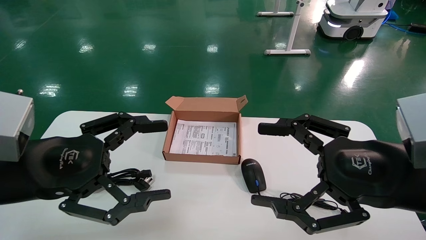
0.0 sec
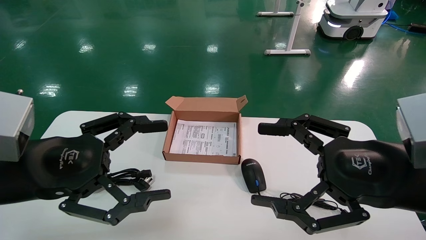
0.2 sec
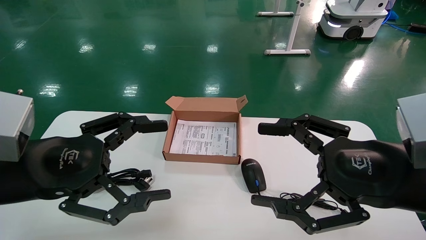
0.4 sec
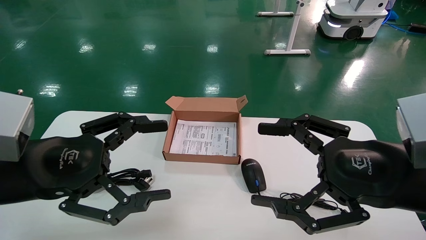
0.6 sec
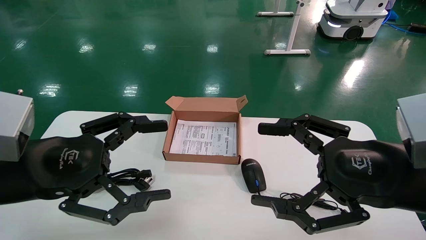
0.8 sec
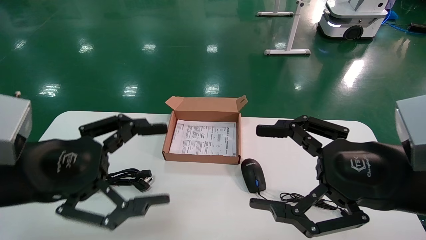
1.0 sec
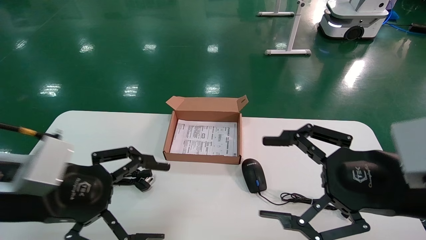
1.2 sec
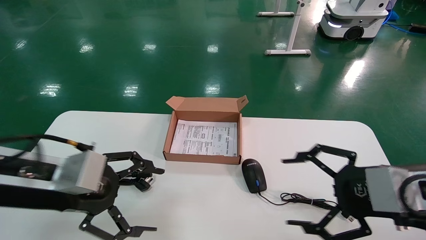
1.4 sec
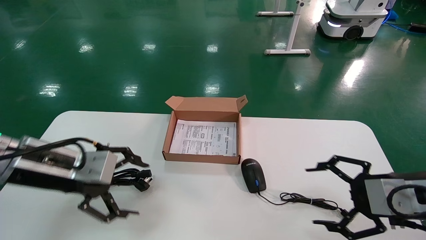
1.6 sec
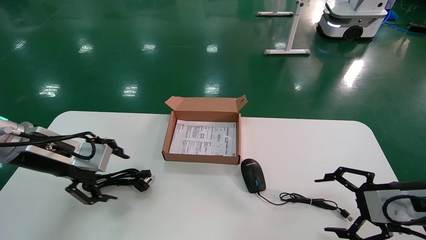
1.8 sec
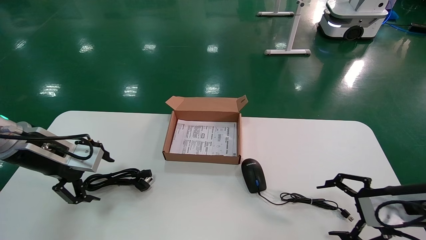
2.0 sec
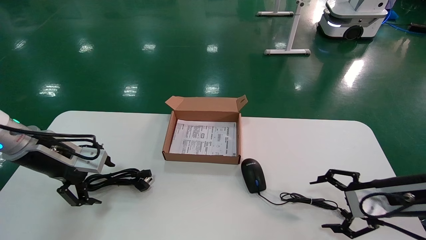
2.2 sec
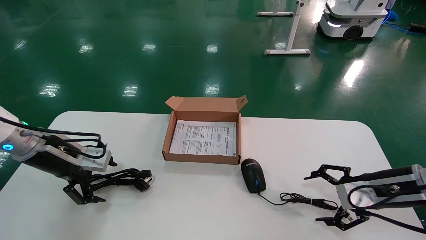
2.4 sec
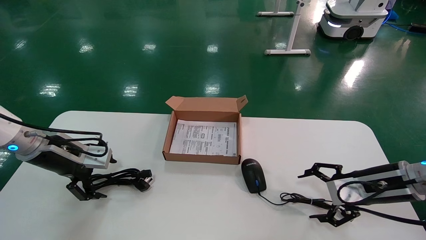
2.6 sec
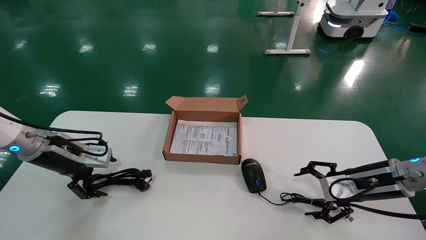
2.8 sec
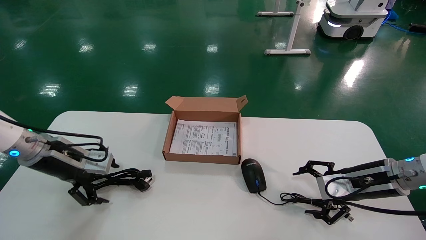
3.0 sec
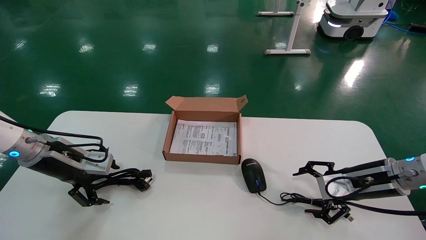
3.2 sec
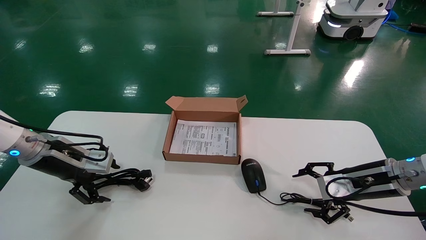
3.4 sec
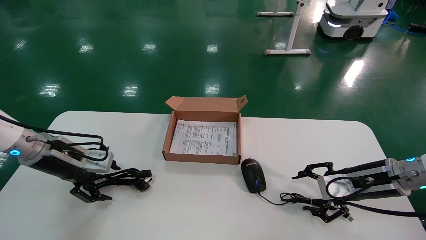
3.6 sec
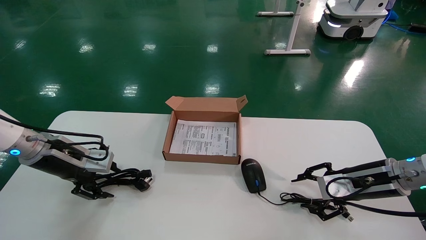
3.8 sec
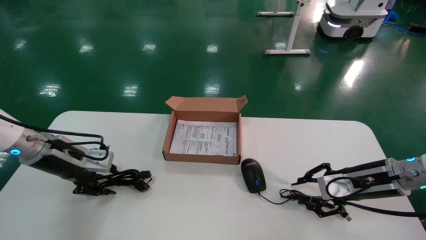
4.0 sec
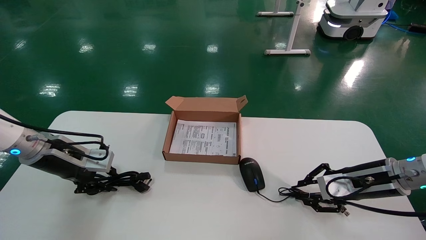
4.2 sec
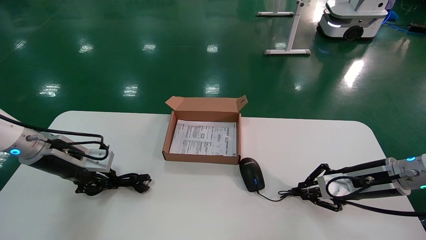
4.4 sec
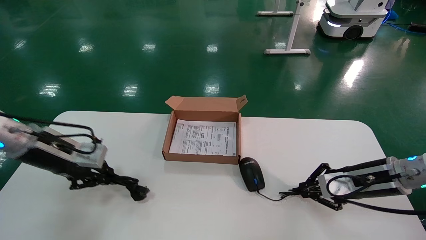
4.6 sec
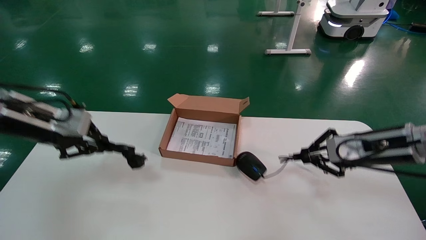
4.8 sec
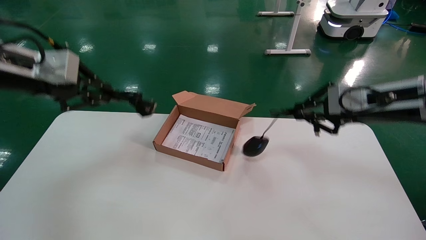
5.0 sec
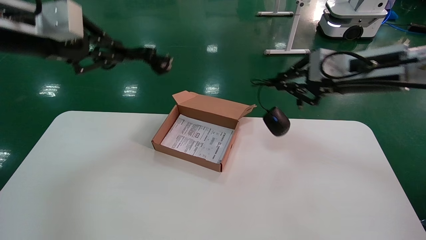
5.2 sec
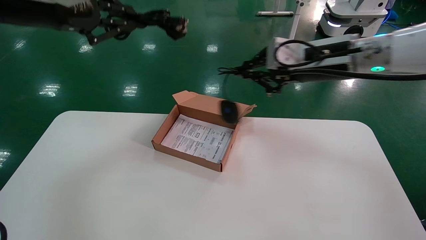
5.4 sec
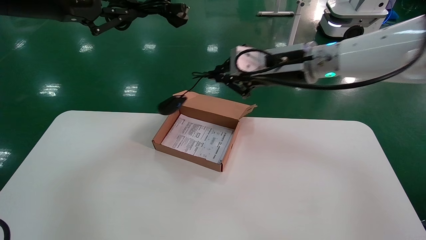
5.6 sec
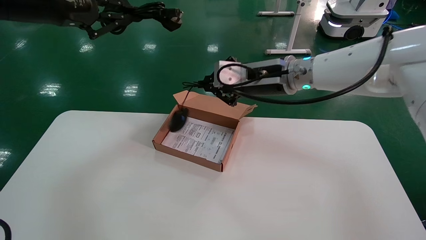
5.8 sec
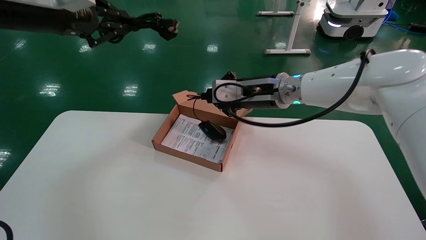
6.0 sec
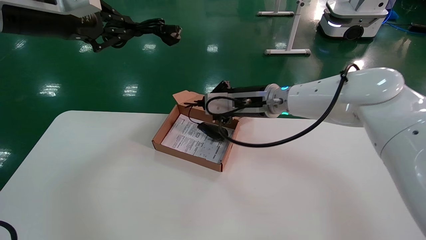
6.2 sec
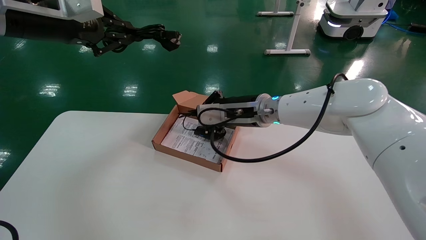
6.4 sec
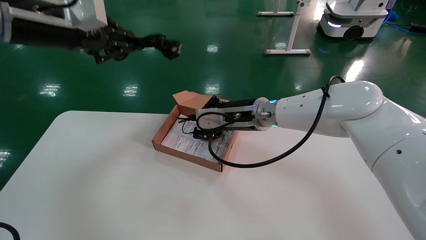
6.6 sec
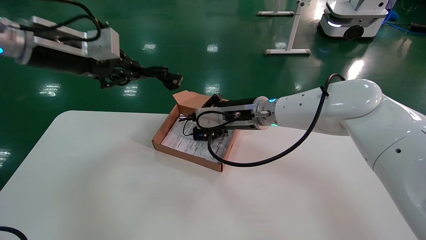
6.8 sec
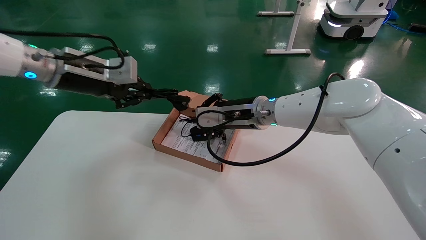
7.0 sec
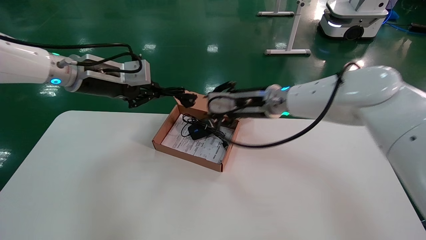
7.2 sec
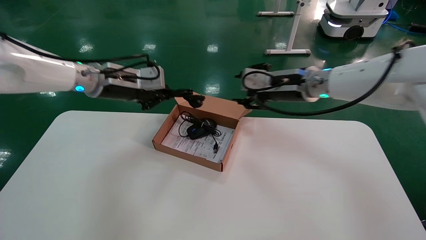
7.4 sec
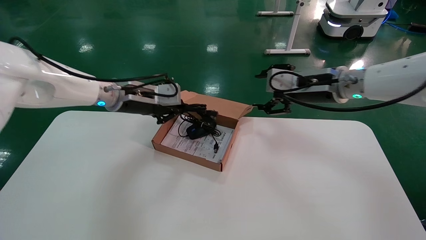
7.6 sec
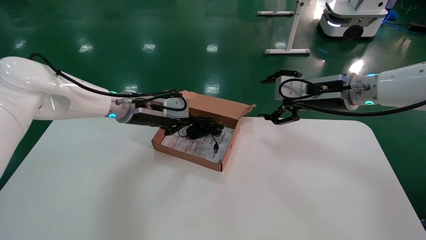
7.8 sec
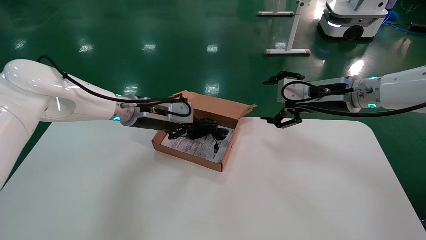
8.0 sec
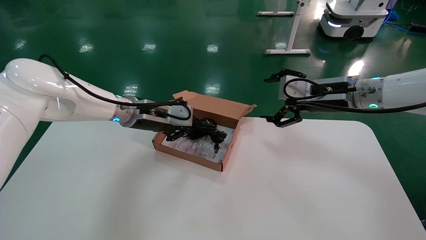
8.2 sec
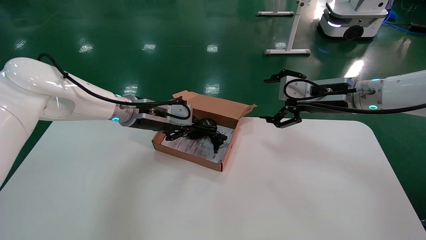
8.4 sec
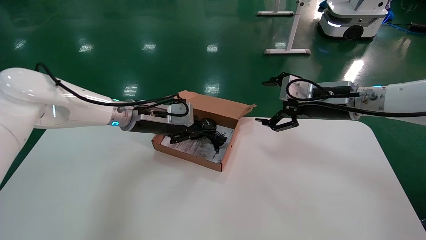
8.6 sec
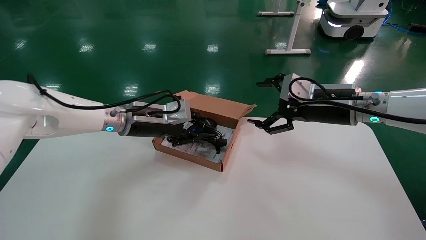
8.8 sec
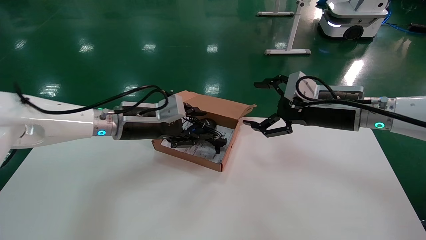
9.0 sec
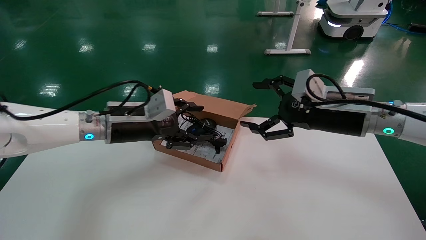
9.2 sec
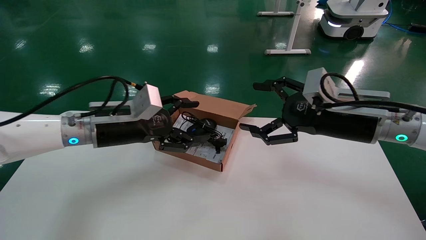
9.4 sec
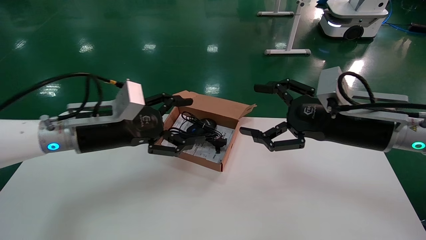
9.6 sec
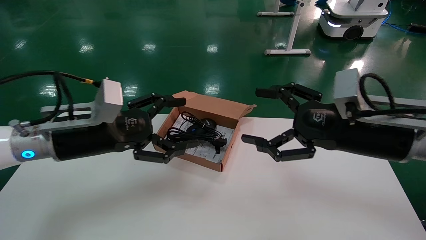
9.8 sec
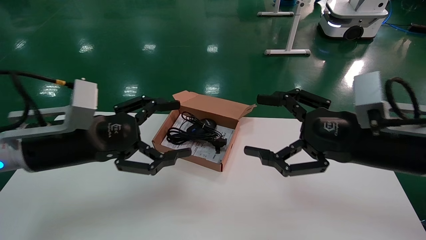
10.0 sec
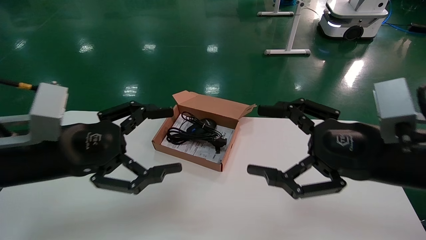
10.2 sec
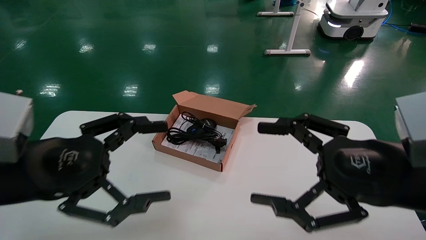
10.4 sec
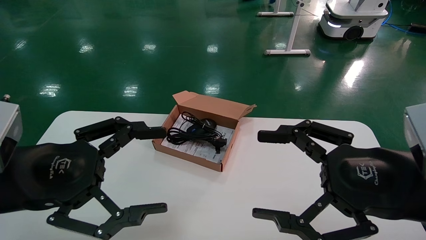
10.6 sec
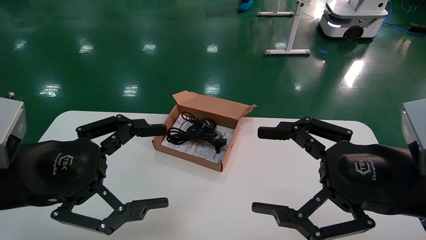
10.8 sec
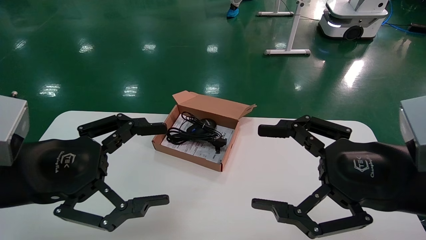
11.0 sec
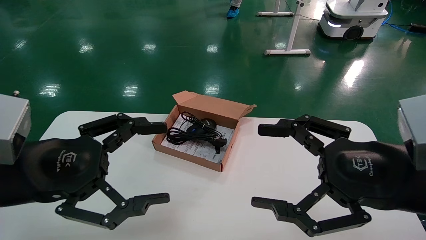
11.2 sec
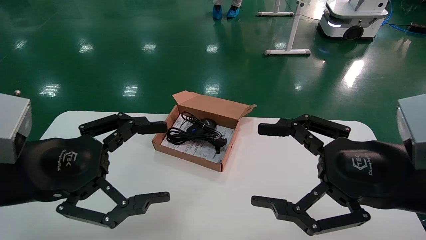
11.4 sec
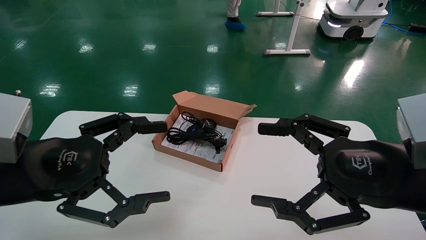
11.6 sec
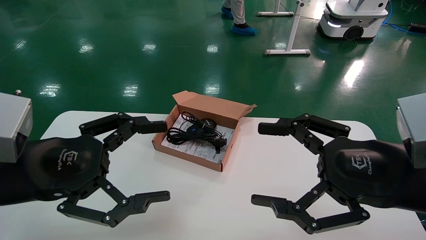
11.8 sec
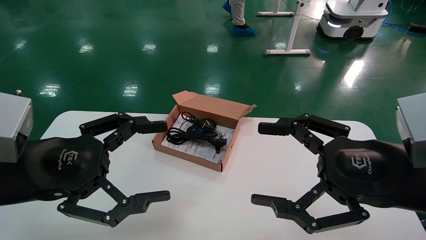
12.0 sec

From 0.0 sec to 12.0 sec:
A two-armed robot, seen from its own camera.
Step, from 1.2 sec to 4.8 sec: Grab and lift both the mouse and power cord from the accessory packaging area at the same time.
Step, from 5.0 sec to 8.4 sec: Place the mouse and power cord into the box.
From 0.0 sec to 1.6 sec: The left gripper goes roughly 10 cm forward; the right gripper heads to the right, downward and forward, covering approximately 10 cm.
From 1.6 sec to 3.0 sec: The right gripper shifts approximately 15 cm forward and downward, while the left gripper travels forward and to the left by approximately 10 cm.
From 3.0 sec to 4.4 sec: The right gripper closes its fingers, while the left gripper closes its fingers.
From 4.4 sec to 6.0 sec: The left gripper is displaced upward by some 25 cm, while the right gripper is displaced to the left and upward by some 25 cm.
From 6.0 sec to 7.6 sec: The left gripper is displaced downward, forward and to the right by about 20 cm. The right gripper is displaced to the right by some 10 cm, and opens.
From 7.6 sec to 9.0 sec: The left gripper moves downward, about 5 cm, and opens its fingers, while the right gripper moves backward, about 5 cm, and opens.
From 9.0 sec to 10.4 sec: The grippers both shift backward by roughly 20 cm. The left gripper opens its fingers.
From 10.4 sec to 12.0 sec: The grippers move only a little.

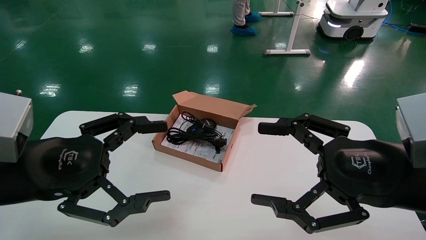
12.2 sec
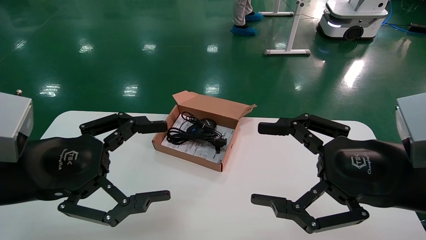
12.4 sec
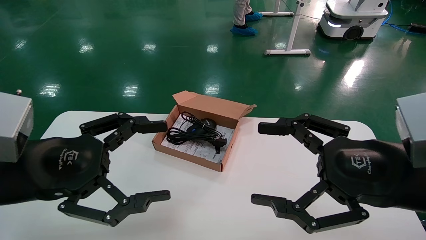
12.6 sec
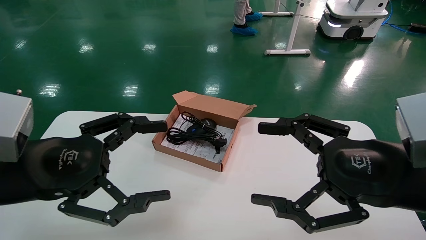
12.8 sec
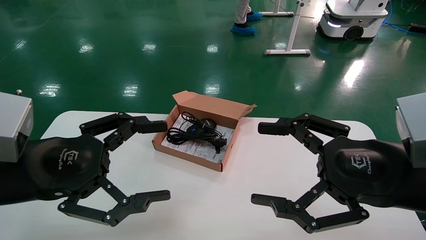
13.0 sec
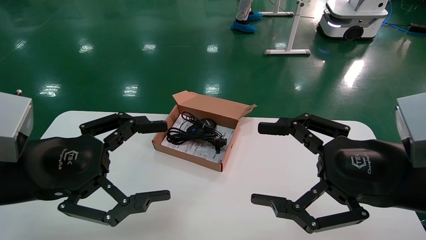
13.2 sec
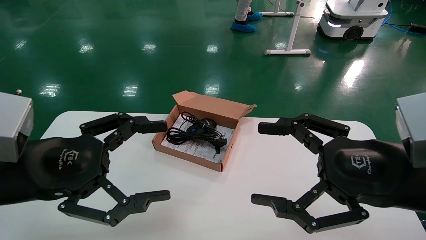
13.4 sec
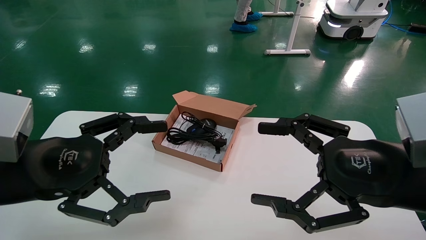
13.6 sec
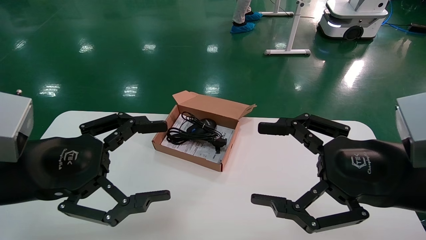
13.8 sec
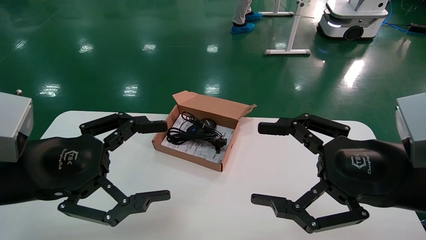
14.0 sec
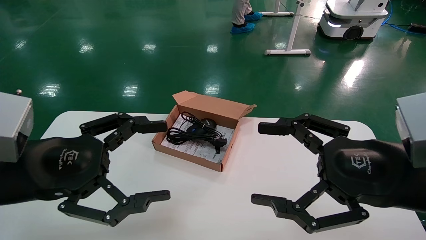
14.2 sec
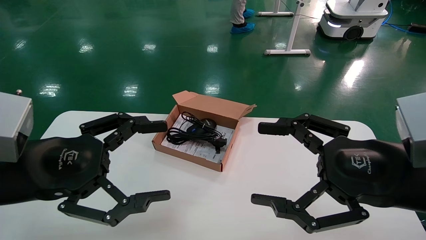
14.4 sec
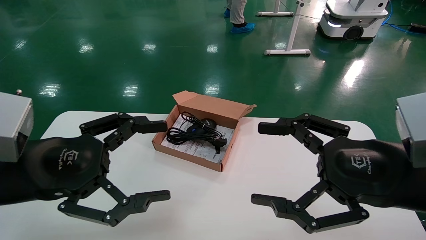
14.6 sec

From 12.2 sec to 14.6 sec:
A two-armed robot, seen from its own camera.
From 12.2 sec to 14.6 sec: Both grippers stay about where they are.

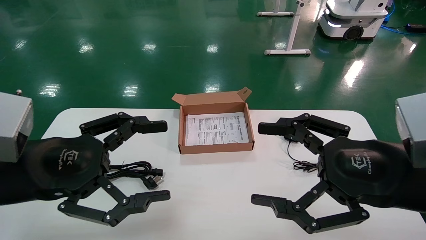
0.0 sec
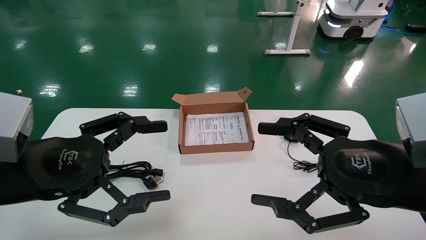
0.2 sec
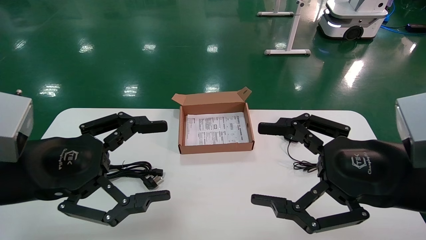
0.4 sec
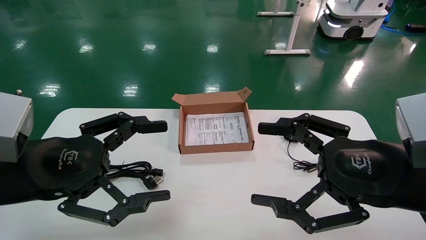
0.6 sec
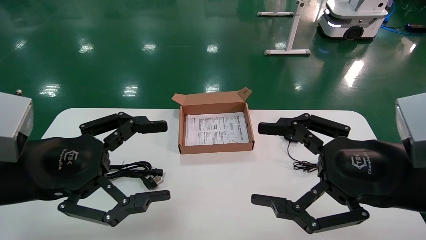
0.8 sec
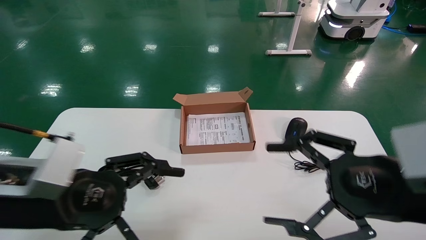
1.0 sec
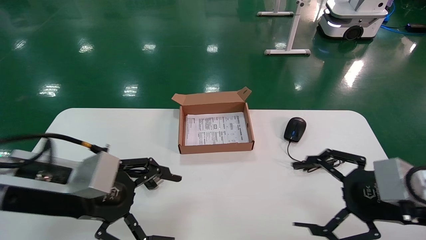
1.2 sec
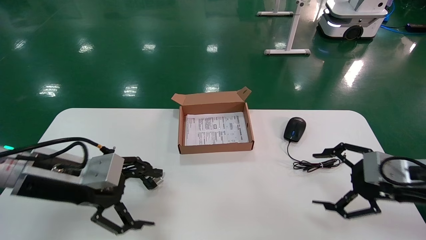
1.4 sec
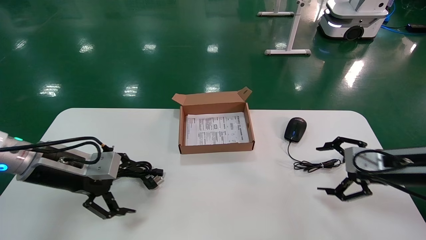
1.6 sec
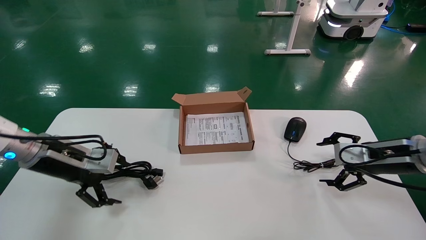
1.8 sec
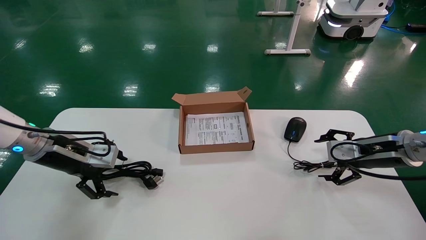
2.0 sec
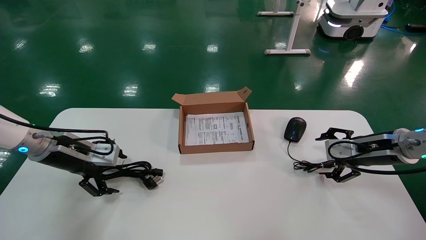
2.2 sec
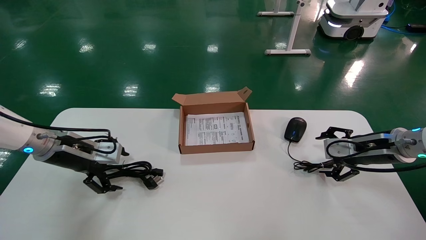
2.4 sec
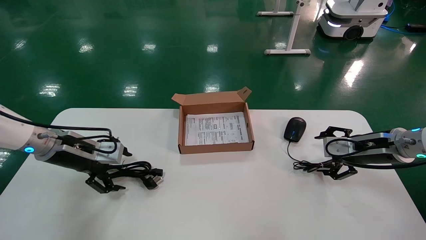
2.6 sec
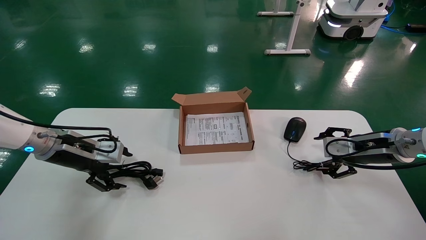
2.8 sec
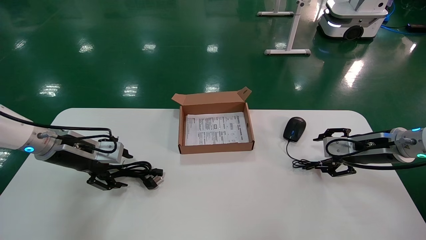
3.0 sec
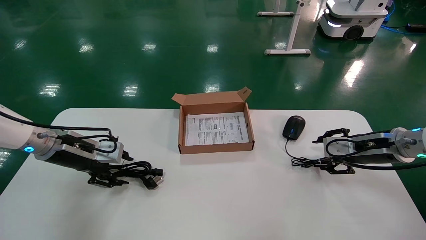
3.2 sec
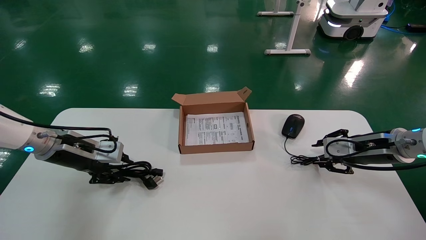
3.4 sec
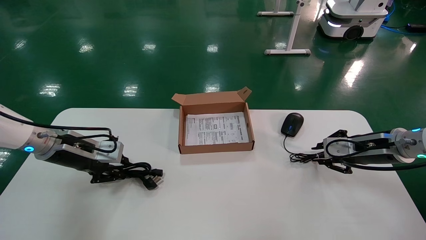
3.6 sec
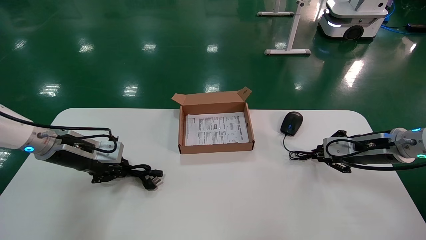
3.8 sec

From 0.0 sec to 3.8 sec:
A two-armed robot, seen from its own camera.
From 0.0 sec to 1.2 sec: The right gripper heads to the right, covering roughly 5 cm. The left gripper ends up some 5 cm from where it was.
From 1.2 sec to 2.6 sec: The right gripper shifts about 15 cm forward; the left gripper moves forward and to the left, some 15 cm.
From 2.6 sec to 3.8 sec: The left gripper closes. Meanwhile the right gripper closes.
